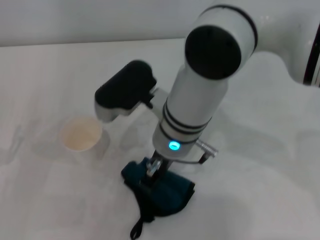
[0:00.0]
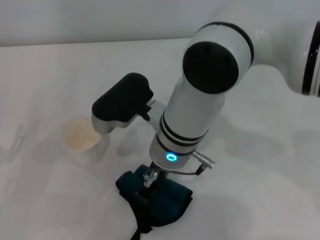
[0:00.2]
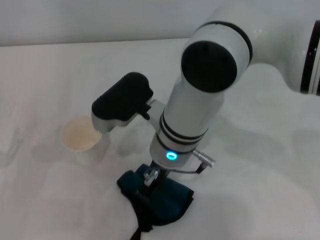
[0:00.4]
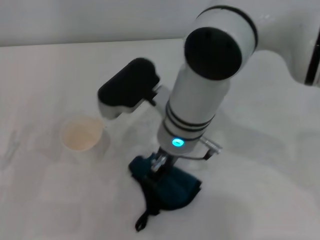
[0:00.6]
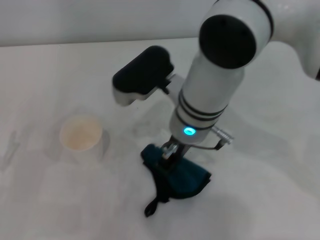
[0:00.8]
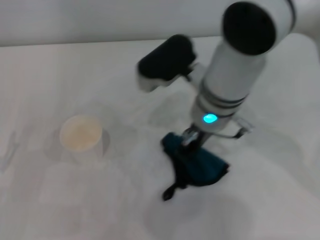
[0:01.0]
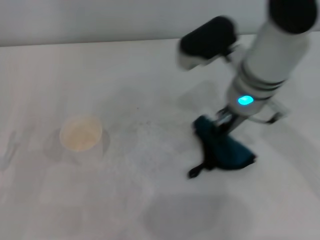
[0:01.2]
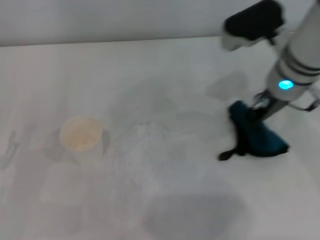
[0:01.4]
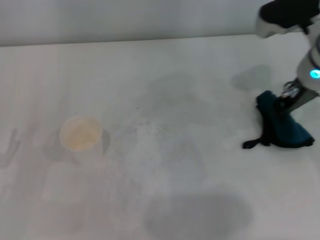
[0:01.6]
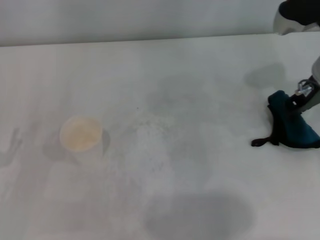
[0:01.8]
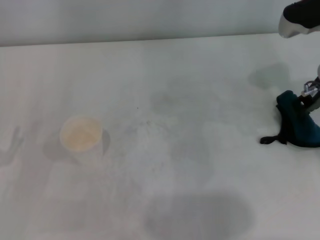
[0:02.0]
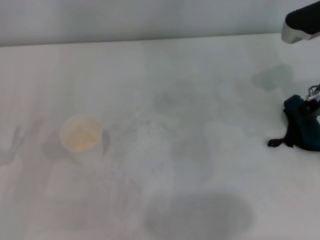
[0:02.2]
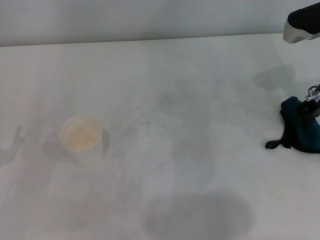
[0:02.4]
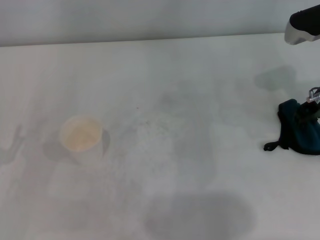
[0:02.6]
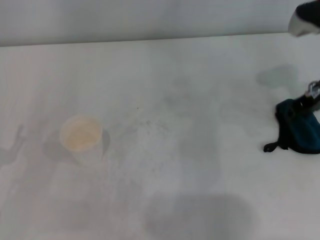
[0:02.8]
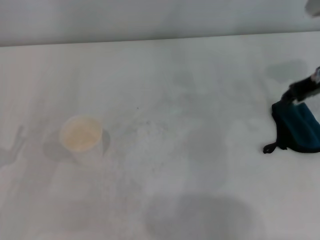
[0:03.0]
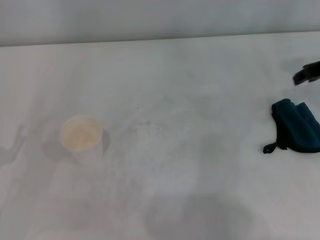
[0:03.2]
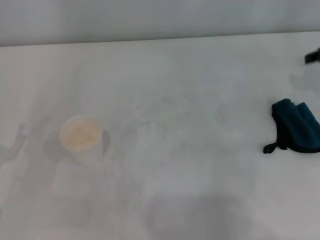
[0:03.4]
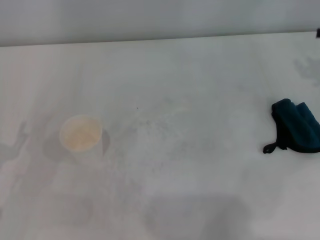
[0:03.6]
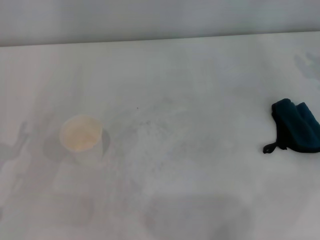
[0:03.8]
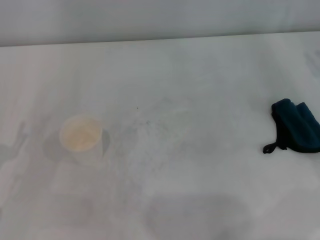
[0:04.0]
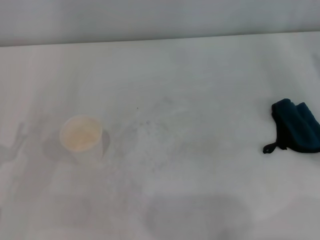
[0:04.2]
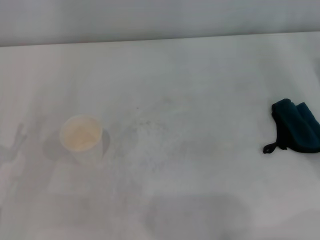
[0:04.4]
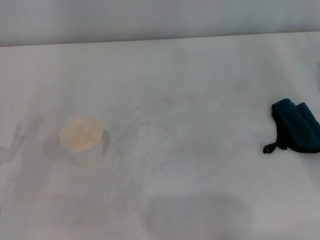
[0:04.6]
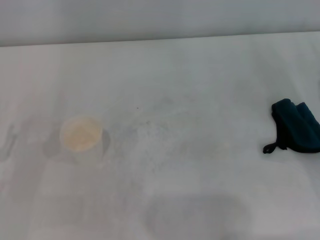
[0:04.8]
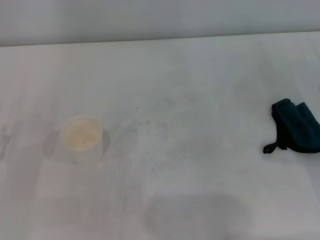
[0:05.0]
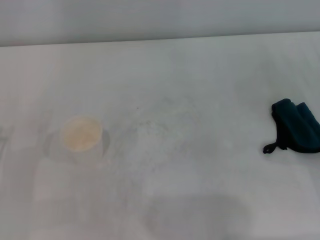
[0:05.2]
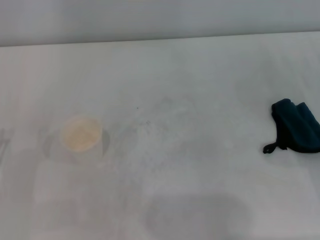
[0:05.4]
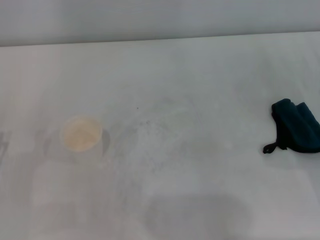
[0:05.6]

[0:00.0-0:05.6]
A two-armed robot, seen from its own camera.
Step, 0:01.4 to 0:02.8: Place the rag on the table with the right gripper.
0:00.0 to 0:01.4: The right gripper heads to the right, covering about 15 cm.
0:01.4 to 0:02.8: The right gripper heads to the right, covering approximately 10 cm.
0:02.8 to 0:04.2: The right gripper goes approximately 15 cm to the right and backward.

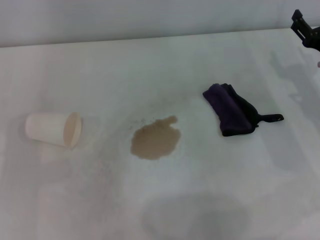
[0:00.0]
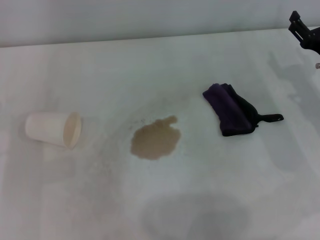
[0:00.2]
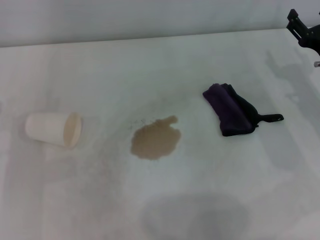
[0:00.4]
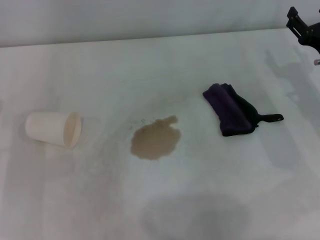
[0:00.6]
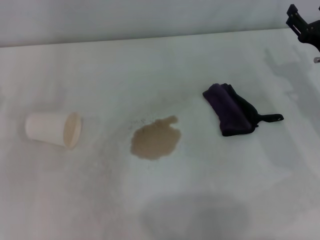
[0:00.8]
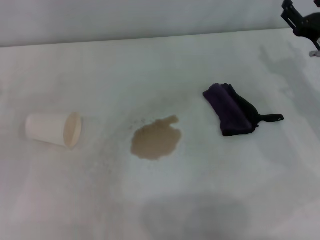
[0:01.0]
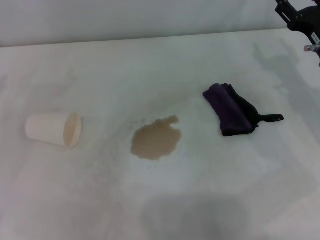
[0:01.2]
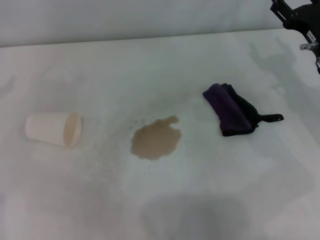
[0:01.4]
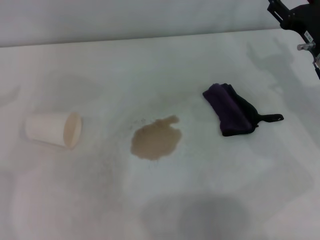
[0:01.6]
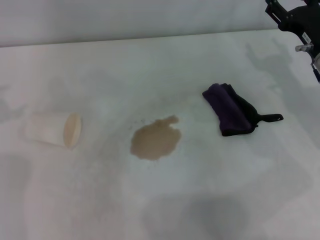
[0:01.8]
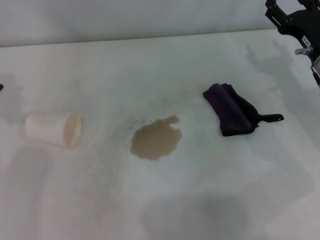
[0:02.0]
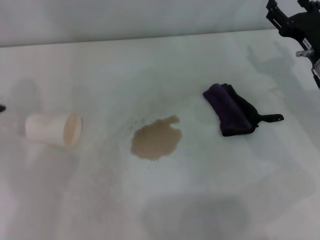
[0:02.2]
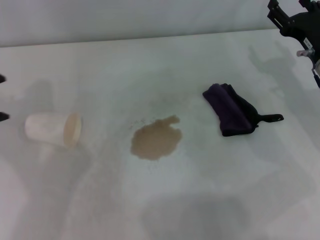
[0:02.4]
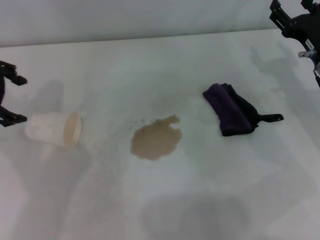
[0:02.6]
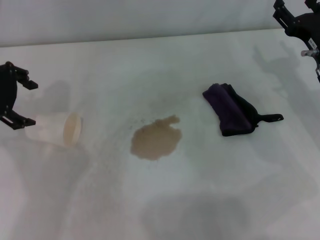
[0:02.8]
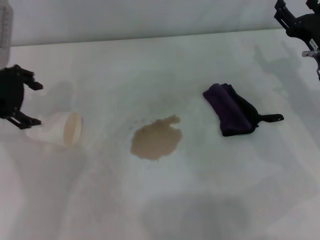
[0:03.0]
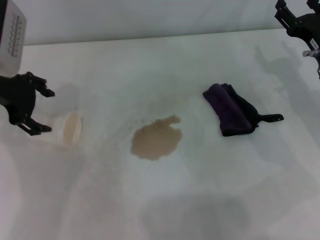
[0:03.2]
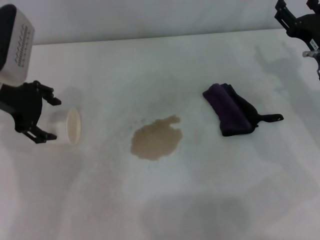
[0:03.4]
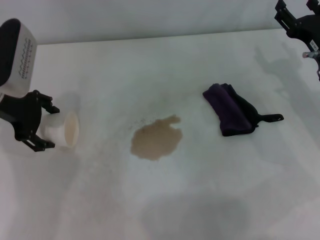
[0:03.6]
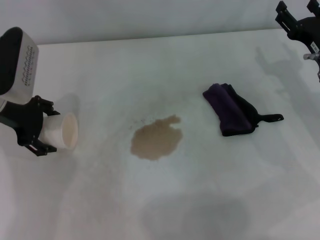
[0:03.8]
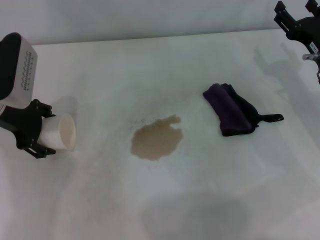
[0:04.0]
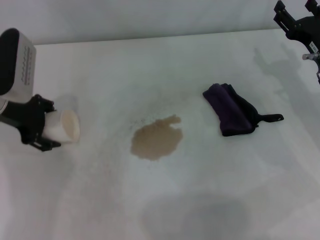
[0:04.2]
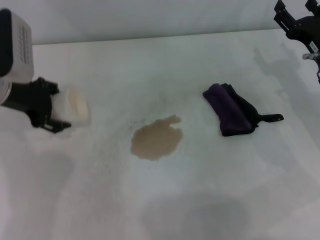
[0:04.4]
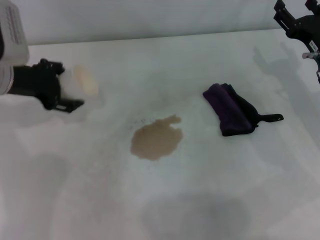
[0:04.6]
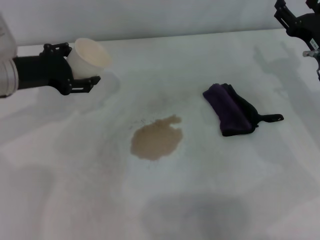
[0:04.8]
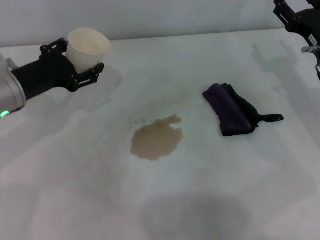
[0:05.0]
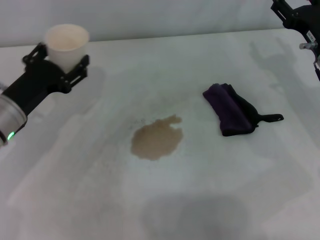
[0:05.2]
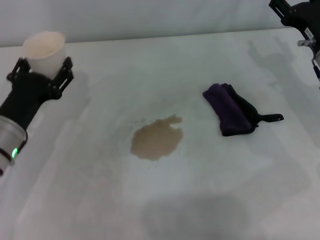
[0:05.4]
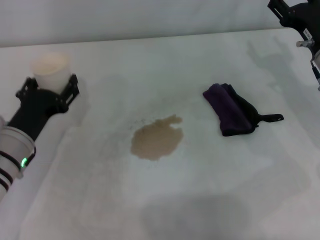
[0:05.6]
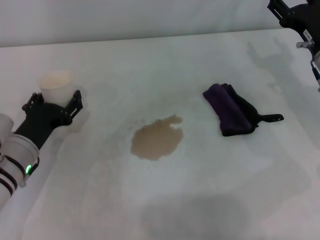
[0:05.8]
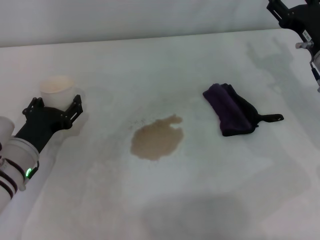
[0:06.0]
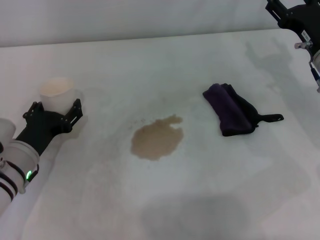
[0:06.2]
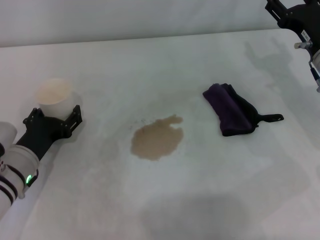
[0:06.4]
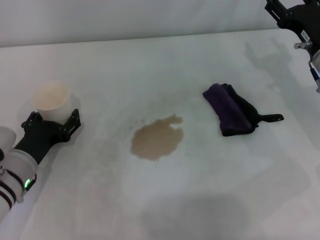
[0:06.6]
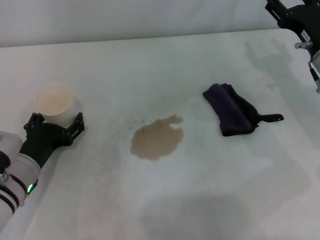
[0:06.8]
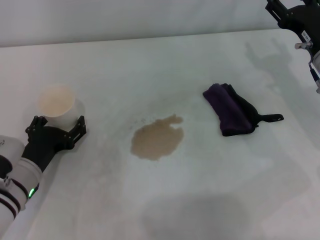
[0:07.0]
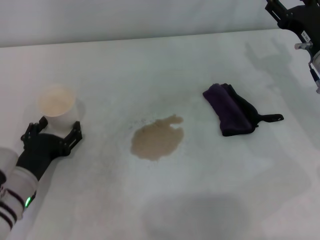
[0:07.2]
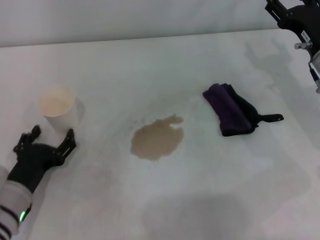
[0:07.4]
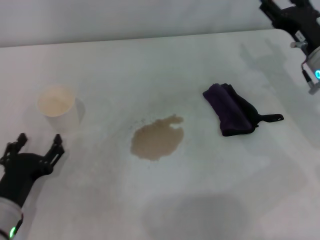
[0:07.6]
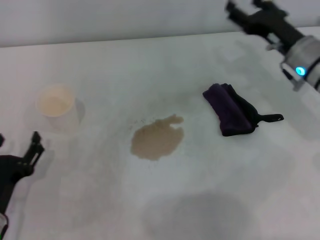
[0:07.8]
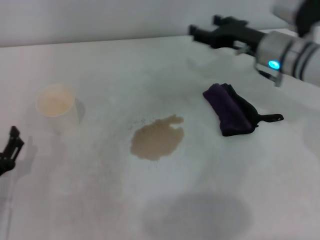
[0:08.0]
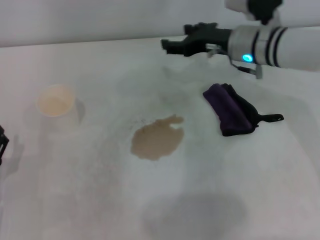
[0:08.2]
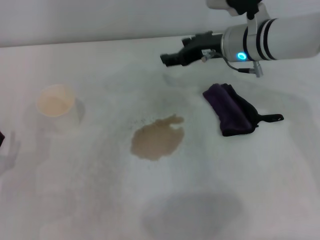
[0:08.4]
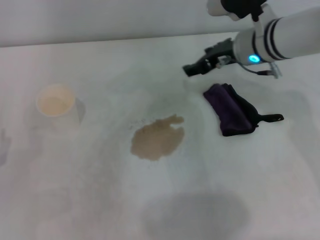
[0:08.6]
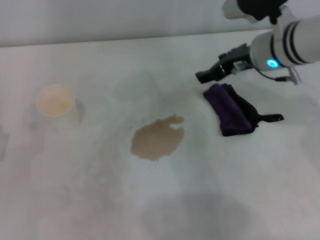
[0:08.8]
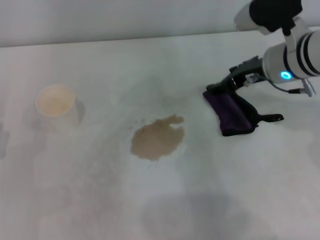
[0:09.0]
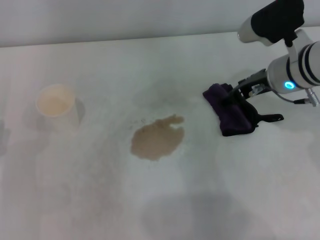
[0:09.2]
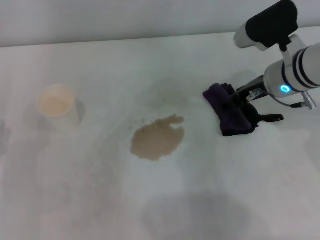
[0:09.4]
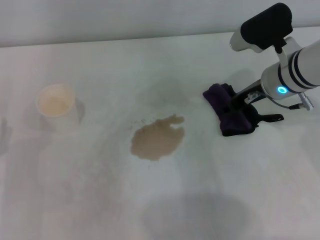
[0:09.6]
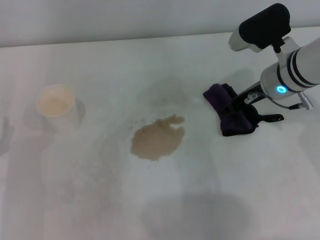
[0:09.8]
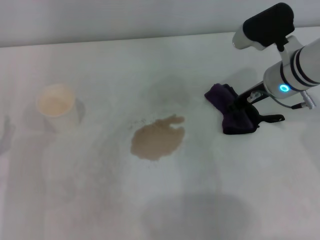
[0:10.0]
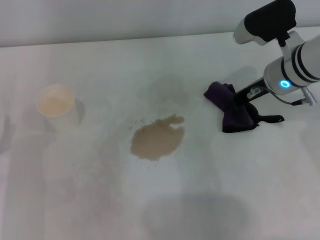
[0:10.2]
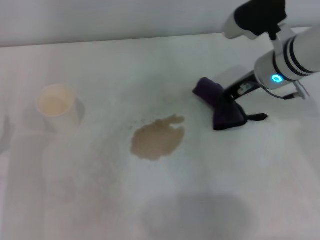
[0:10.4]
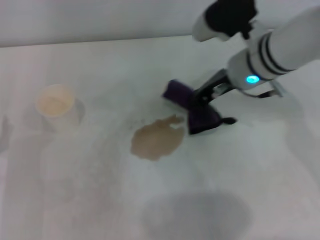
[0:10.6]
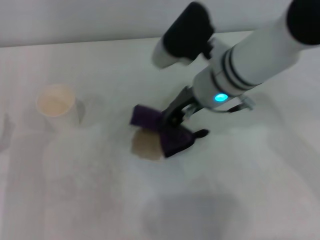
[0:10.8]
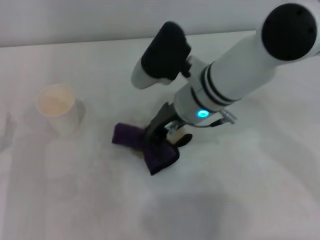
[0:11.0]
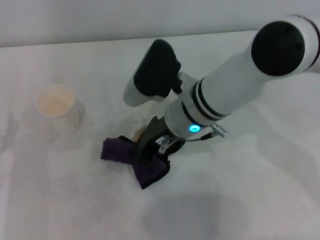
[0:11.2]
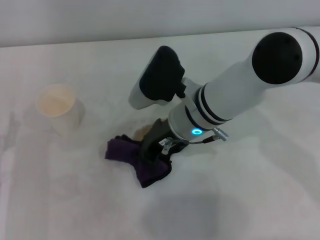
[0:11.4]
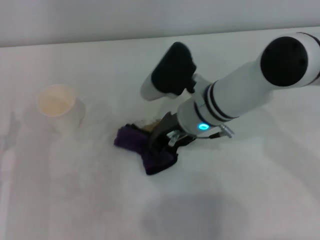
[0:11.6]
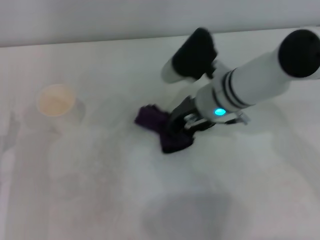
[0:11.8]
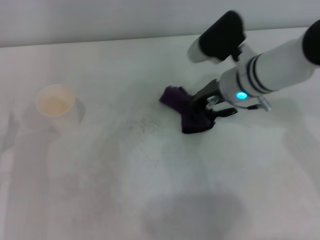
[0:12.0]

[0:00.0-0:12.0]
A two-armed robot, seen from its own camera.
Step, 0:00.0 to 0:04.0: Grasp the paper cup with the left gripper.
Step, 0:04.2 to 0:06.8: Stand the paper cup upright with the left gripper.
Step, 0:07.0 to 0:09.8: Grasp the rag with the right gripper.
0:01.6 to 0:03.0: The left gripper travels to the right by about 15 cm.
0:03.0 to 0:04.4: The left gripper ends up roughly 5 cm from where it was.
0:04.4 to 0:06.0: The left gripper travels downward and backward by roughly 15 cm.
0:06.0 to 0:07.6: The left gripper moves backward, roughly 10 cm.
0:07.6 to 0:09.0: The left gripper heads to the left, covering approximately 5 cm. The right gripper travels to the left and upward by approximately 10 cm.
0:09.0 to 0:10.4: The right gripper closes.
0:10.4 to 0:12.0: The right gripper moves approximately 15 cm to the left and comes back.

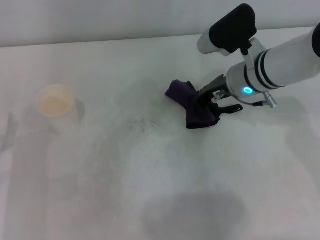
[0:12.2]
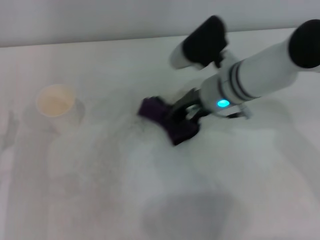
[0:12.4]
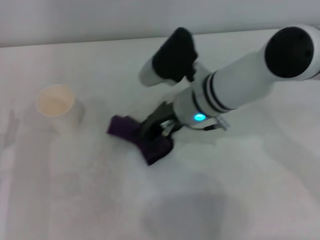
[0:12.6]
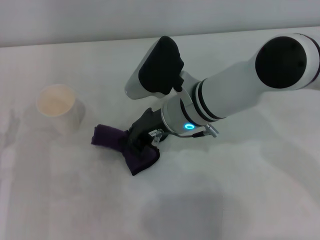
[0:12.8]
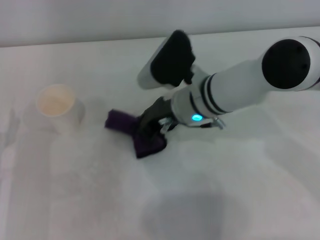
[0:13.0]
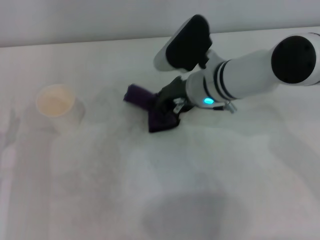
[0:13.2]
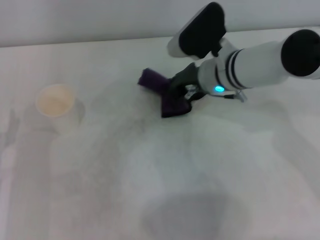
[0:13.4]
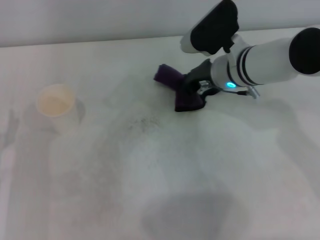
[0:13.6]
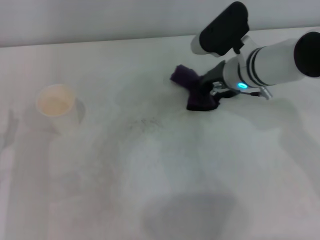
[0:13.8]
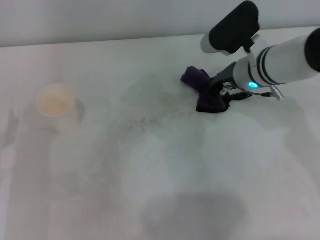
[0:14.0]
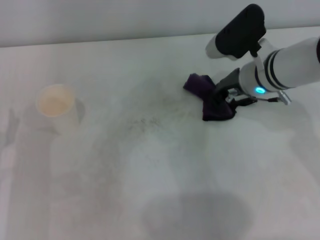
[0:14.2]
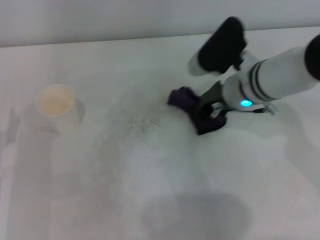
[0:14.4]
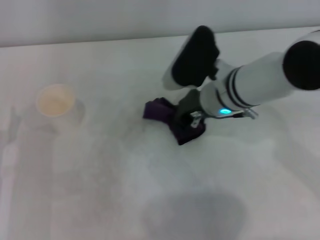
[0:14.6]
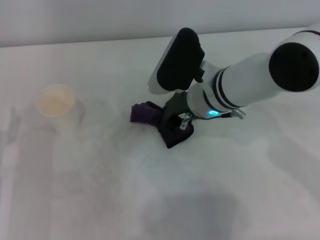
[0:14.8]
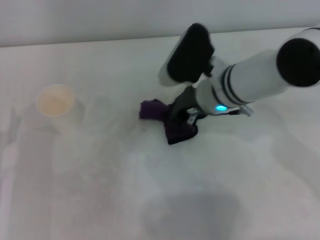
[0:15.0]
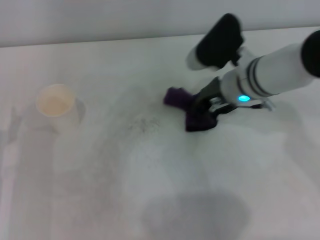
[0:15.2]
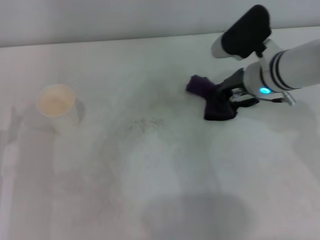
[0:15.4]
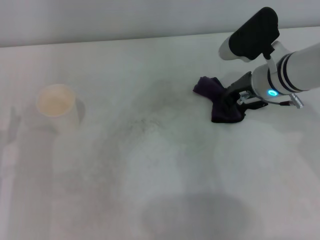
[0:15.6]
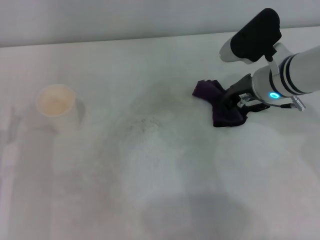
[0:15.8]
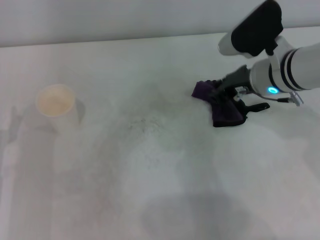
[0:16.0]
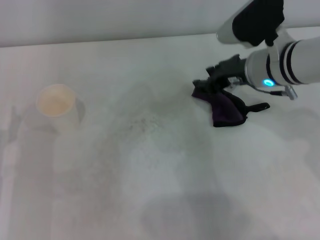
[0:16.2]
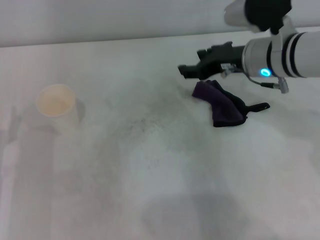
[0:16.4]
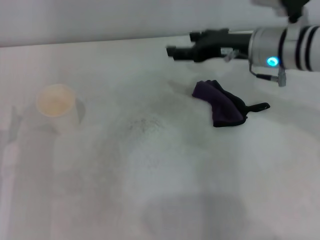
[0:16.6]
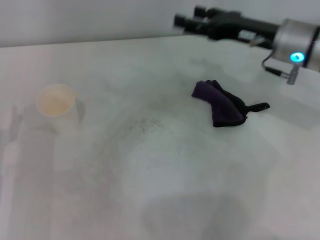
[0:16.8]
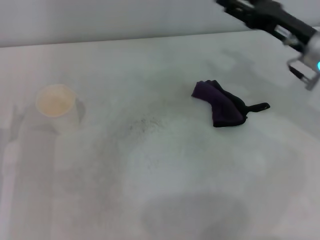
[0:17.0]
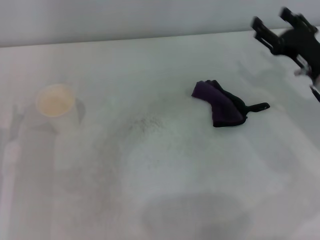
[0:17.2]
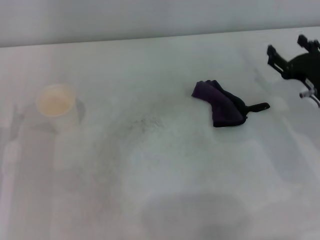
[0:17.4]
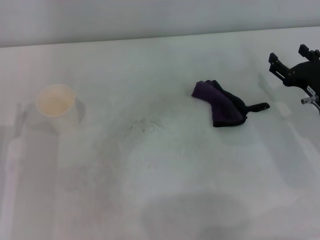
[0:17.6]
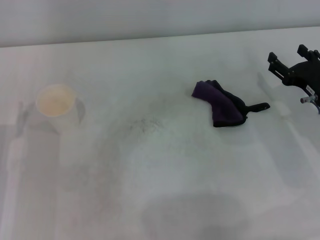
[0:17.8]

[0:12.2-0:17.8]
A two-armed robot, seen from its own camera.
Step, 0:12.2 to 0:15.0: Wipe the stains off the table with the right gripper.
Step, 0:15.2 to 0:15.8: Place the rag on the table with the right gripper.
0:12.2 to 0:13.6: The right gripper reaches about 10 cm to the left, then returns.
0:13.6 to 0:15.0: The right gripper ends up approximately 5 cm from where it was.
0:15.0 to 0:16.4: The right gripper moves to the right, roughly 5 cm, and opens up.
0:16.4 to 0:17.8: The right gripper travels to the right, downward and backward by about 20 cm, and opens.
